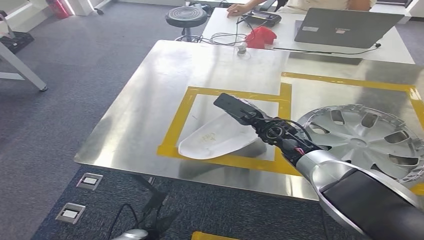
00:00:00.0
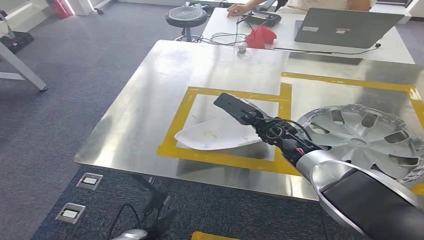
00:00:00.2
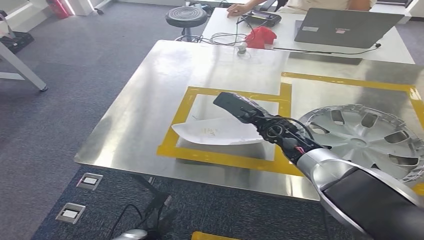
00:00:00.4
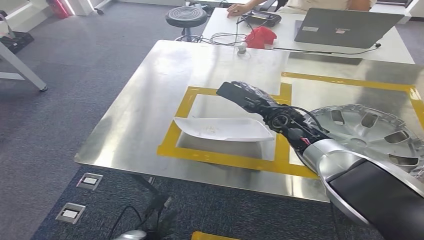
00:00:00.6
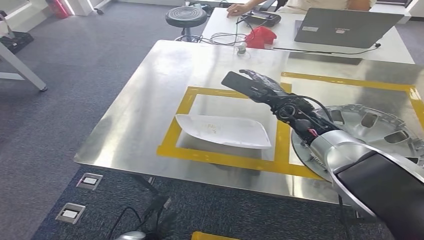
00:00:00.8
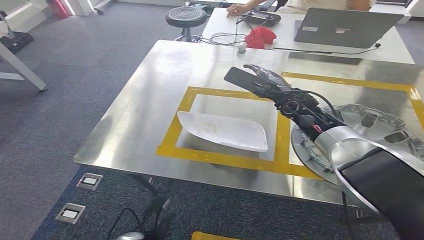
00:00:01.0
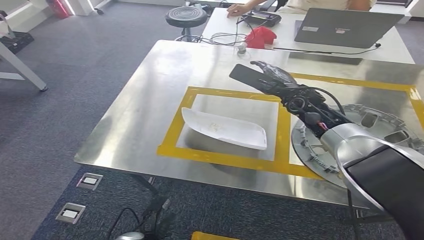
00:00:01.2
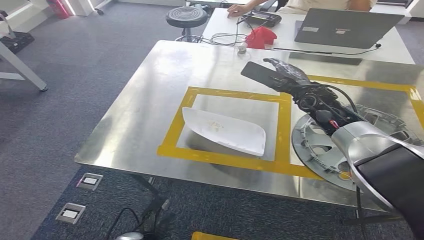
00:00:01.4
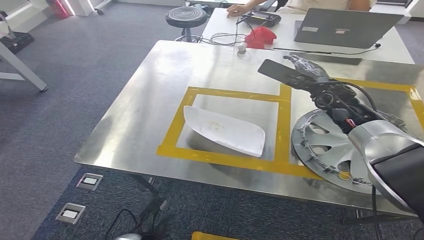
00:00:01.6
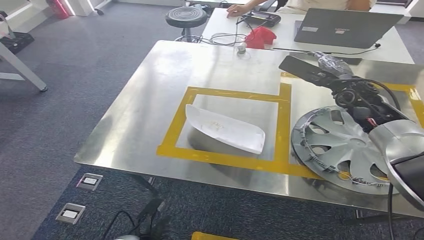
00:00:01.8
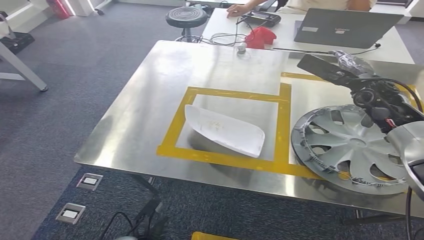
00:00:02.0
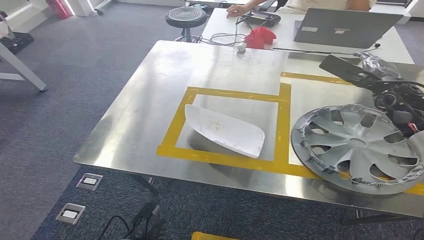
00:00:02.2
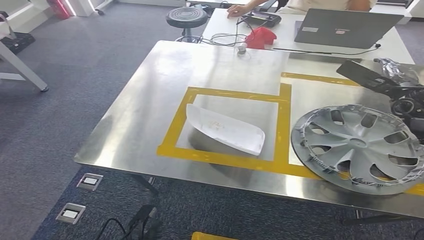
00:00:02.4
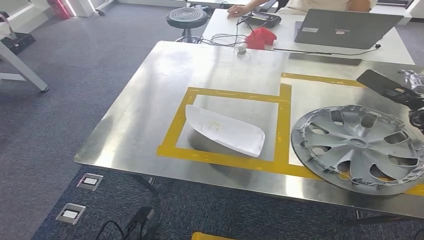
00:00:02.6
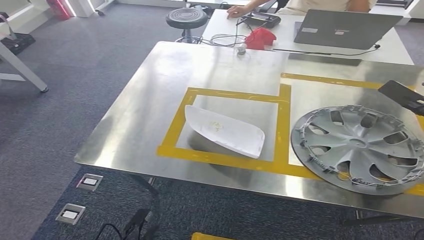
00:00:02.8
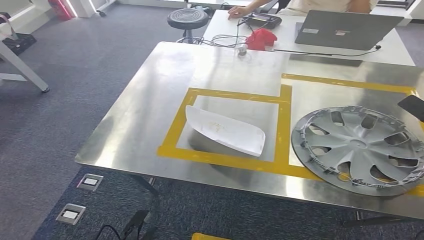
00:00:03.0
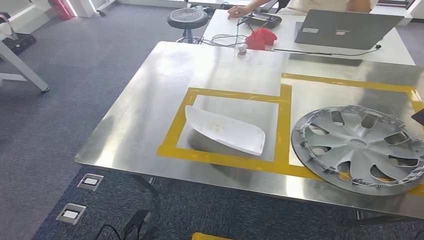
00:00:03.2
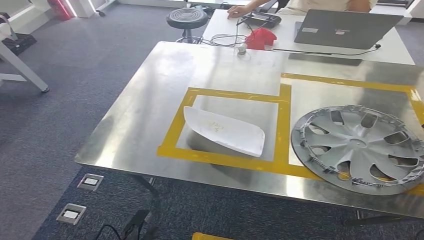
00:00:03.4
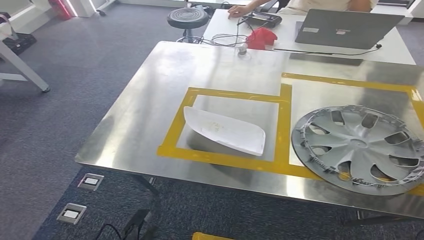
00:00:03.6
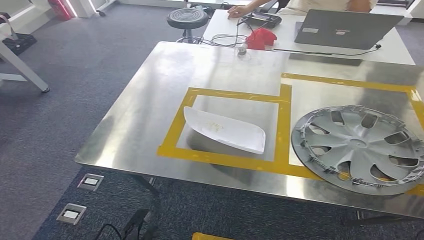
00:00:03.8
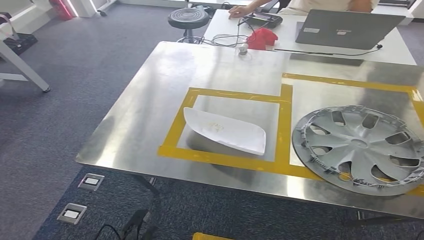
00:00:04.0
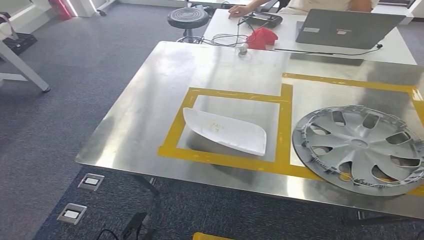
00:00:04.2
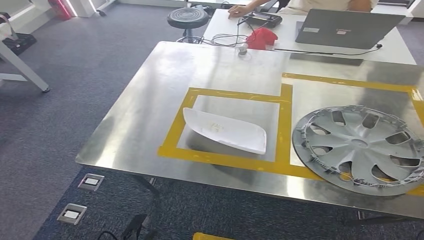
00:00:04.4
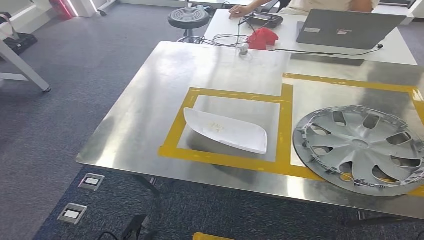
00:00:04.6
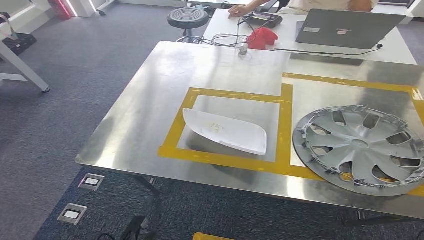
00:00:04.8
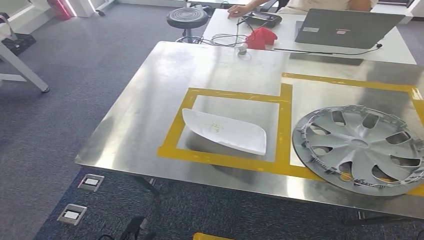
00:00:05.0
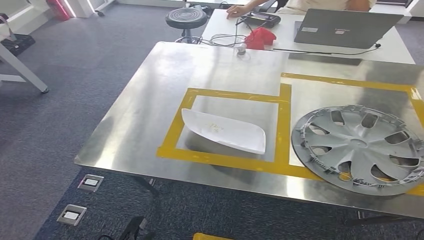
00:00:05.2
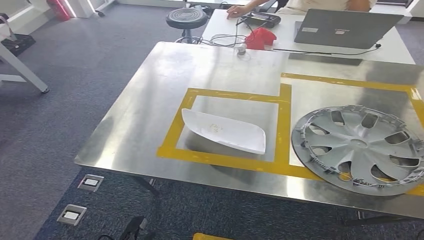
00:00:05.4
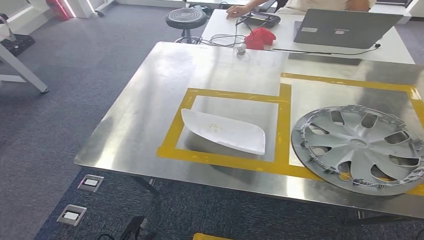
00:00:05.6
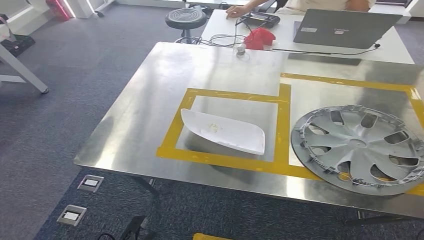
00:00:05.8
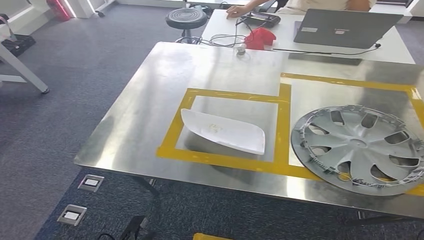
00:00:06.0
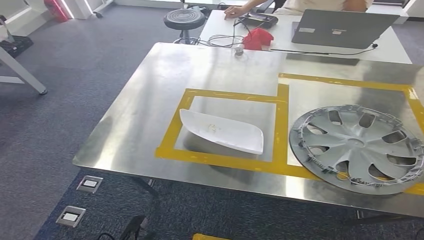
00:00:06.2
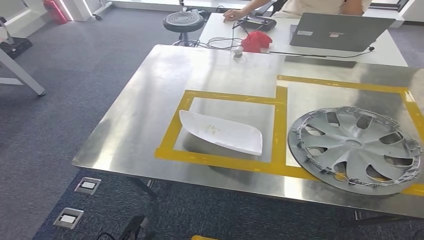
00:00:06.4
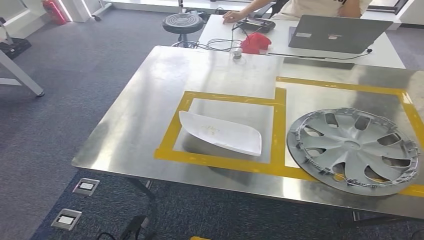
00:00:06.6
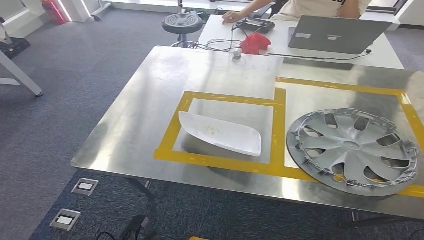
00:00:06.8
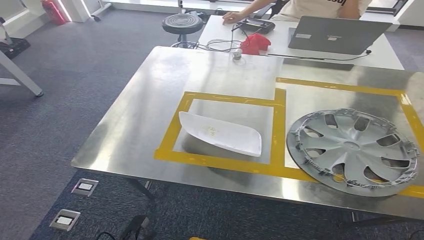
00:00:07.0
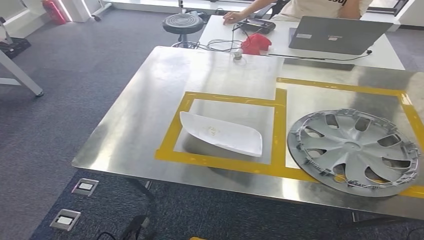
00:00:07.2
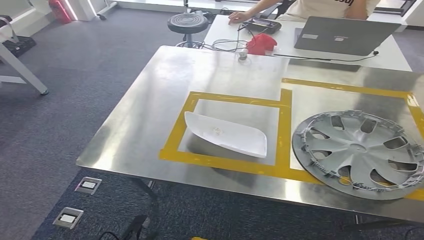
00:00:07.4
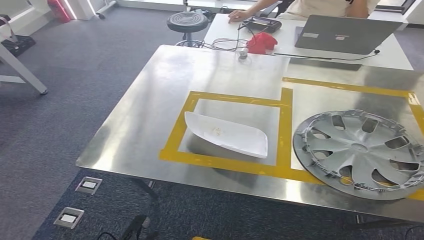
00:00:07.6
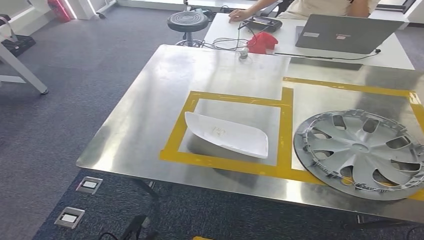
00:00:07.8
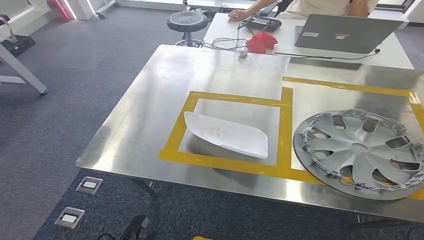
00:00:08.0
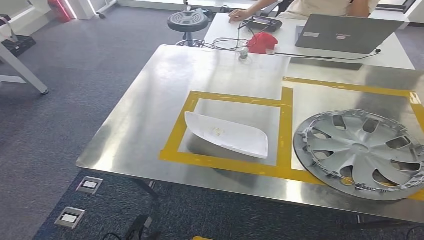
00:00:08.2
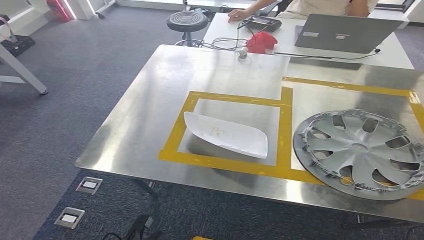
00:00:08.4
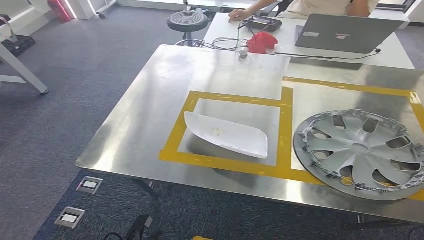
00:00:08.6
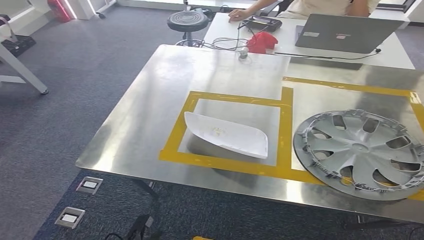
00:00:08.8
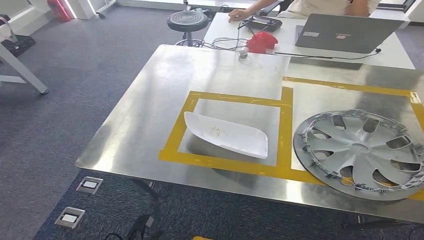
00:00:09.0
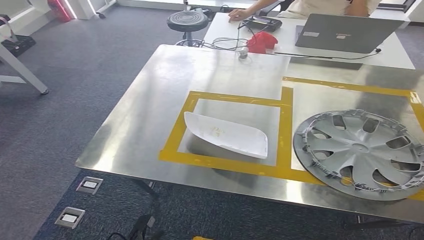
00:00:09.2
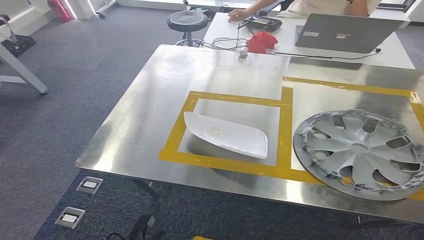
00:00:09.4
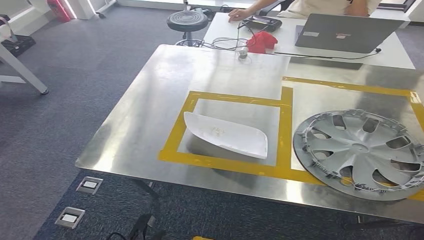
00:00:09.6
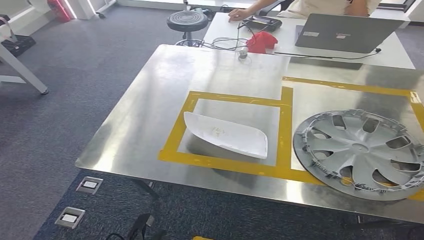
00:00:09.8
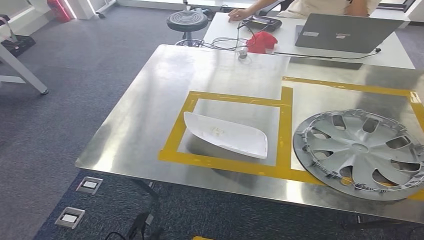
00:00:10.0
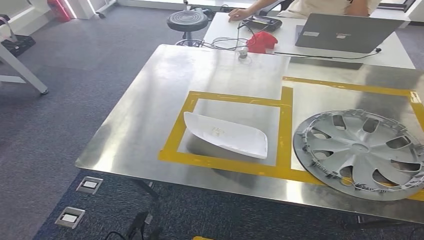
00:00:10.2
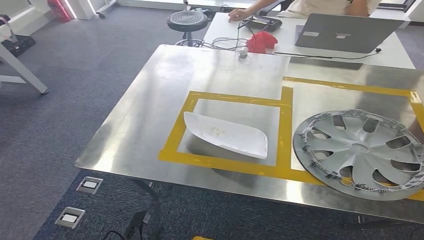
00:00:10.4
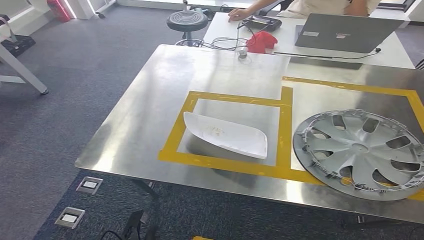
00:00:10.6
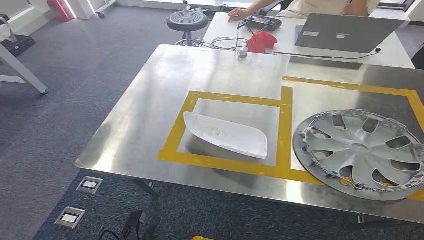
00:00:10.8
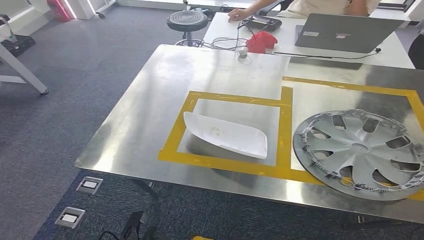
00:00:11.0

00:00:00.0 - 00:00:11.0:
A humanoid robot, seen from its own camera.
00:00:00.0 - 00:00:01.6: The right hand is displaced to the right, upward and forward by about 15 cm.
00:00:01.6 - 00:00:03.2: The left hand moves approximately 5 cm. The right hand travels to the right and backward by roughly 35 cm.
00:00:03.2 - 00:00:04.8: The right hand heads backward, to the right and upward, covering about 20 cm.
00:00:04.8 - 00:00:06.2: The right hand moves downward, approximately 25 cm.
00:00:06.2 - 00:00:07.8: The right hand shifts approximately 10 cm upward and to the right.
00:00:07.8 - 00:00:09.4: The right hand shifts roughly 25 cm upward.
00:00:09.4 - 00:00:11.0: The hands stay close to where they were, moving slightly.

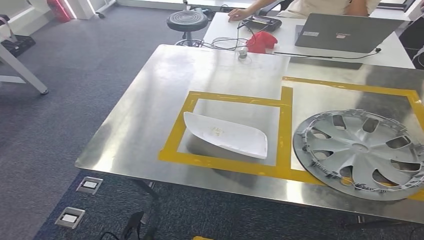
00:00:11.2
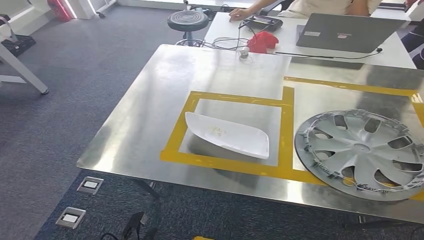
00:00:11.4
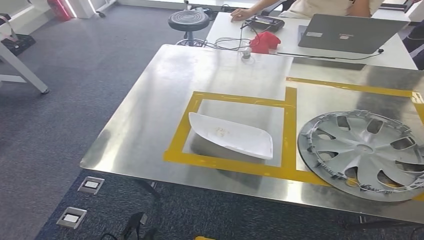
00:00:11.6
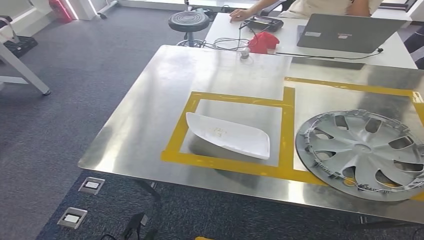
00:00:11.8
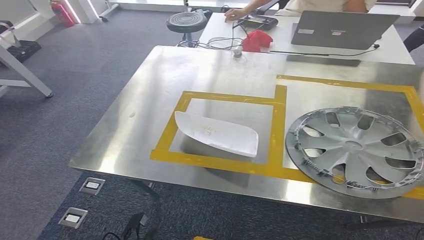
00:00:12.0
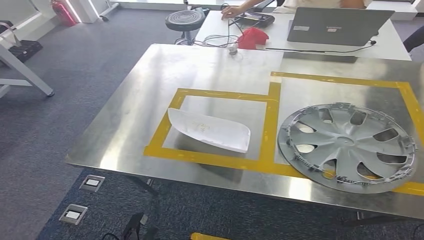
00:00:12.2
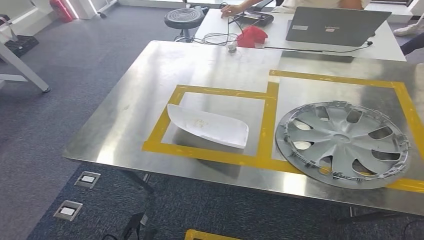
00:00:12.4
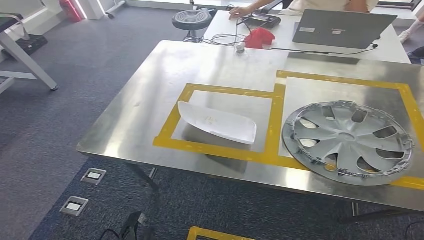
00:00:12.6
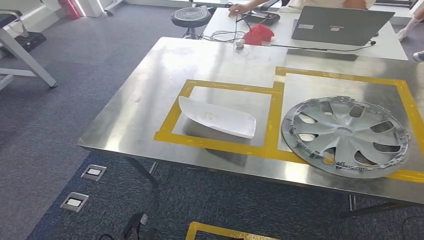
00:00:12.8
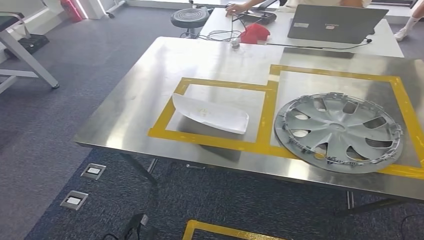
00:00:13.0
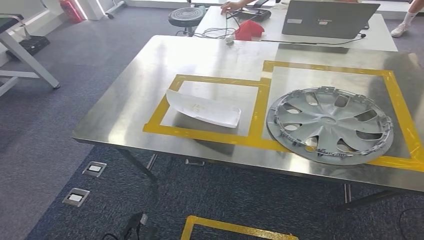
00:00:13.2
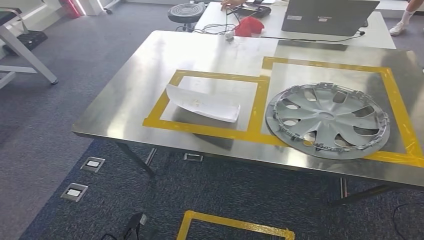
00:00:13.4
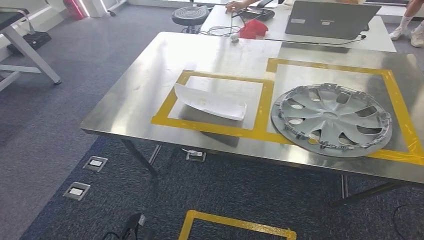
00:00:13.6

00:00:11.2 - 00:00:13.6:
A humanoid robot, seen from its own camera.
Step, 00:00:11.2 - 00:00:13.6: Return to the initial position at the workbench.

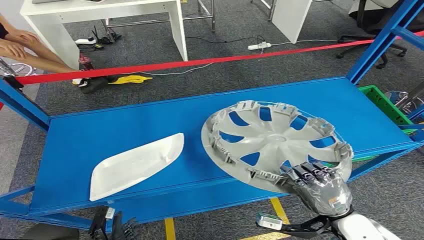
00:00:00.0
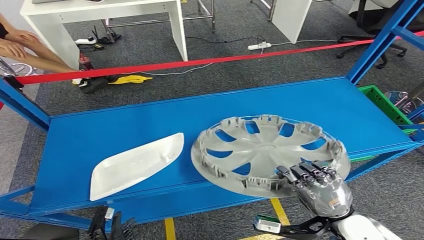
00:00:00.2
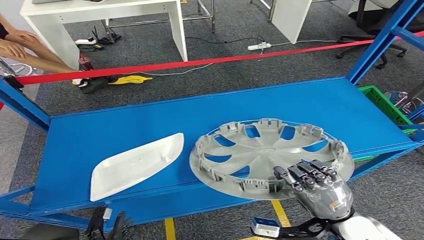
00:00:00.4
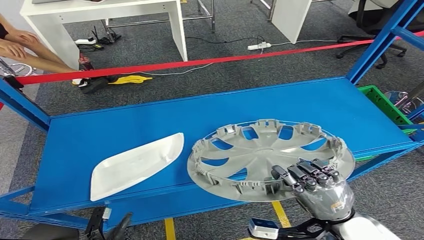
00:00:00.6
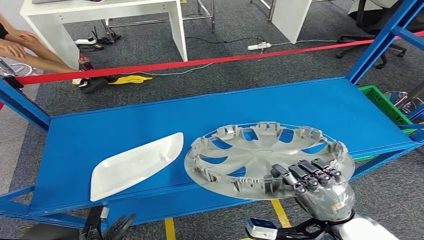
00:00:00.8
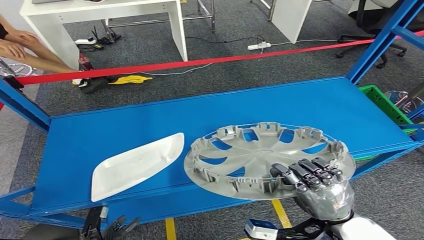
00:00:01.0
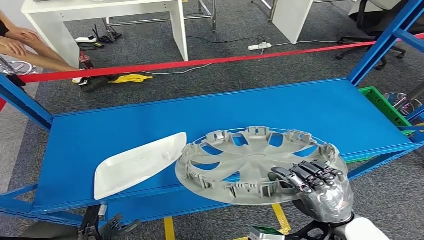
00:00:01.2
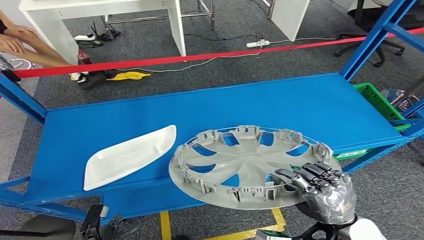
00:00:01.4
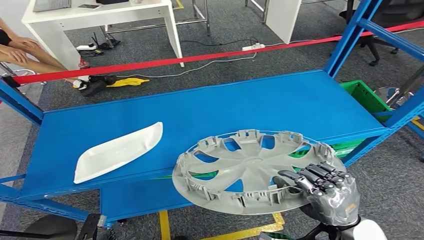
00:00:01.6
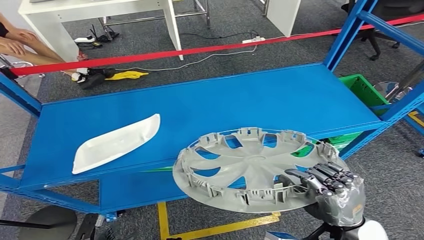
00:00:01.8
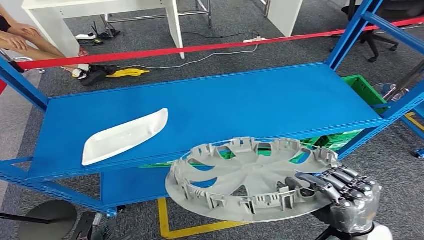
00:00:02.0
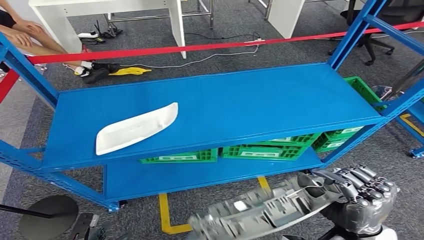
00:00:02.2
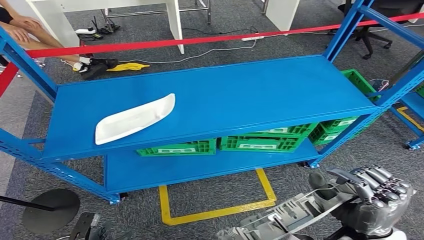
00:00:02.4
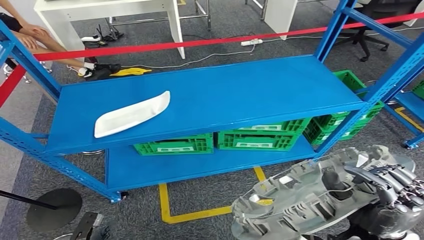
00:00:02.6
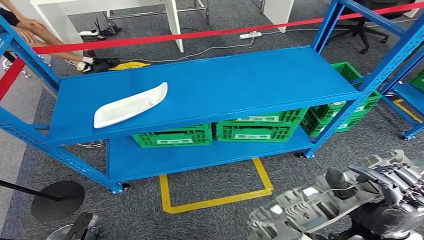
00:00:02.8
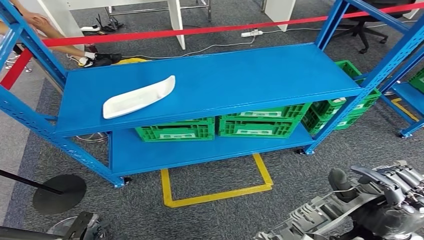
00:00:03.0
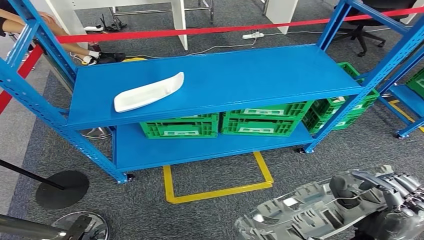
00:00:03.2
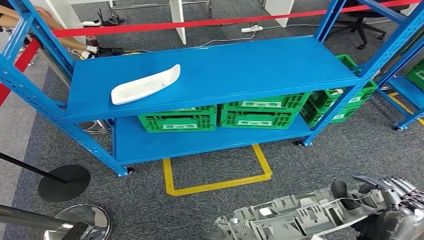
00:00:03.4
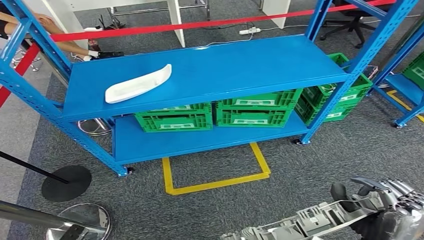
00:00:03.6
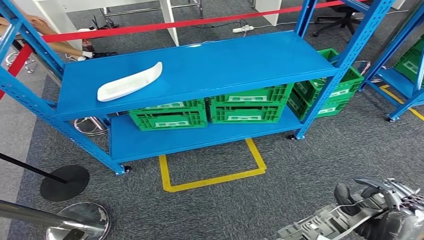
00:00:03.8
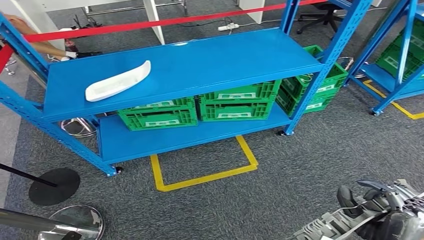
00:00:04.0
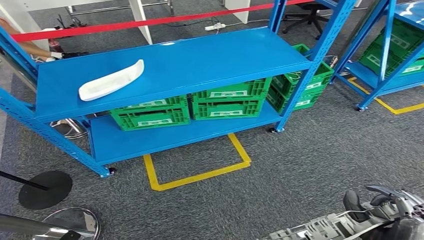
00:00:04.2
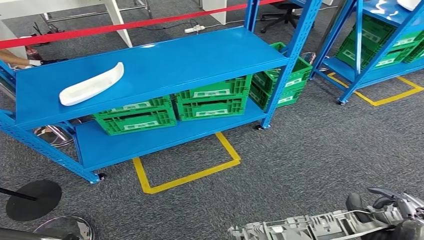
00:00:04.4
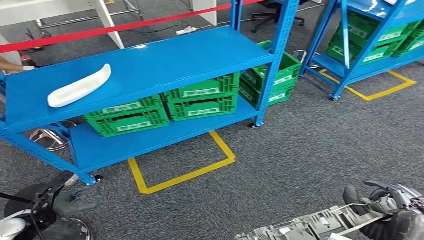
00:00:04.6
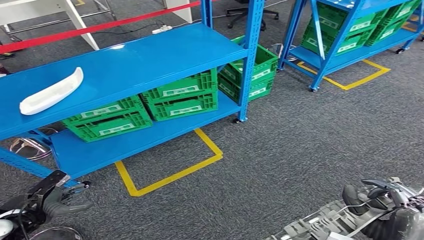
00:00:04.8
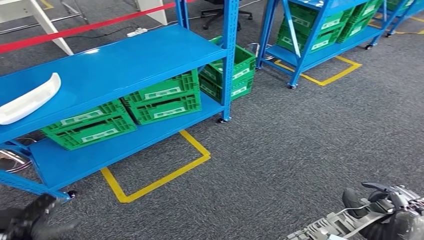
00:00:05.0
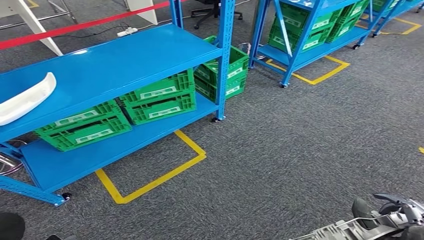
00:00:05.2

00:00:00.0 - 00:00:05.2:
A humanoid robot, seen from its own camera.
Step, 00:00:00.0 - 00:00:02.6: Pick up the small parts from the shelf.
